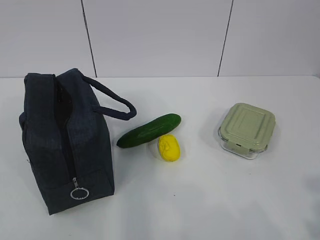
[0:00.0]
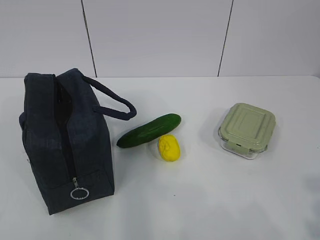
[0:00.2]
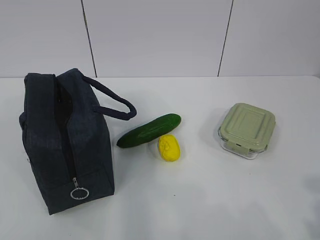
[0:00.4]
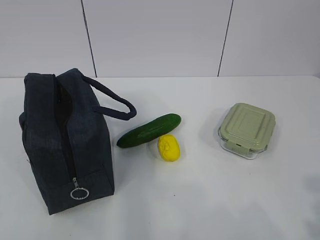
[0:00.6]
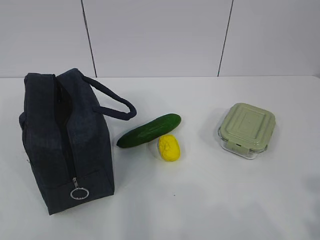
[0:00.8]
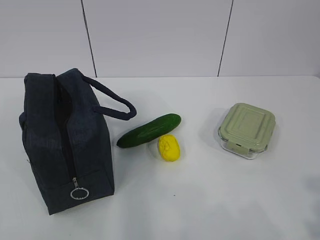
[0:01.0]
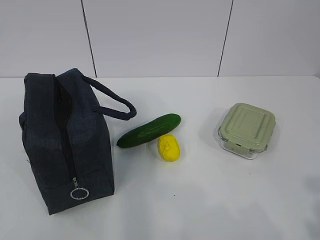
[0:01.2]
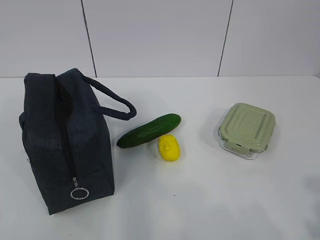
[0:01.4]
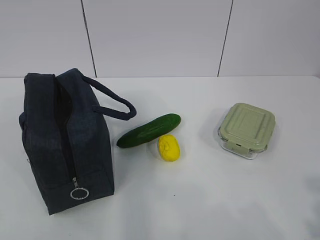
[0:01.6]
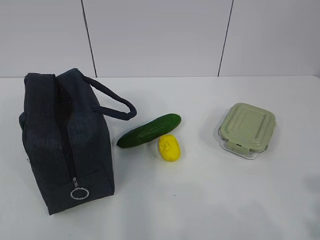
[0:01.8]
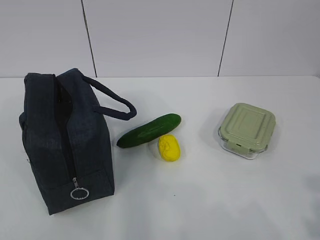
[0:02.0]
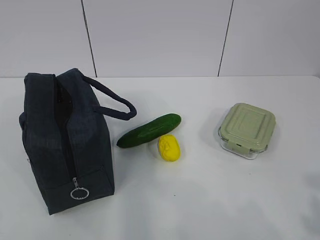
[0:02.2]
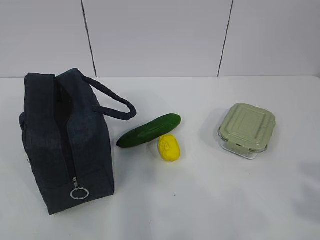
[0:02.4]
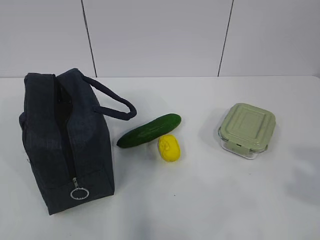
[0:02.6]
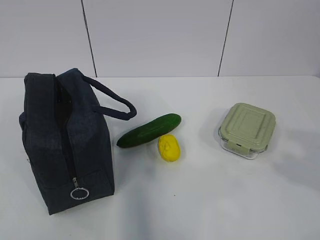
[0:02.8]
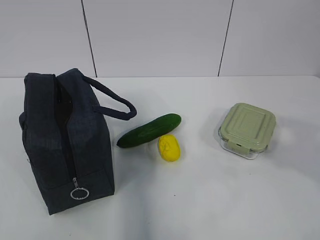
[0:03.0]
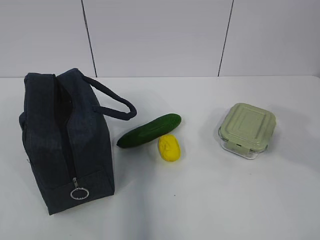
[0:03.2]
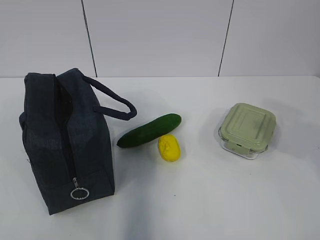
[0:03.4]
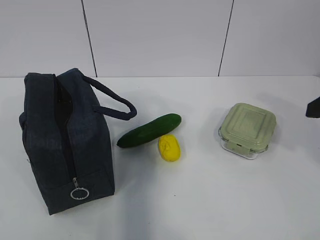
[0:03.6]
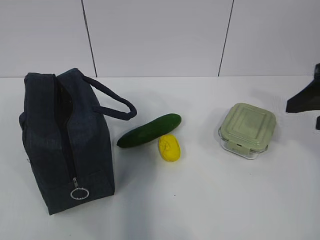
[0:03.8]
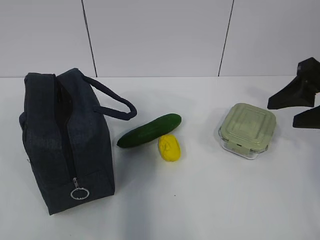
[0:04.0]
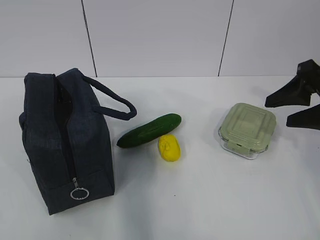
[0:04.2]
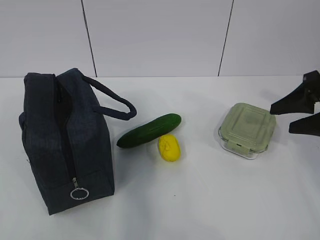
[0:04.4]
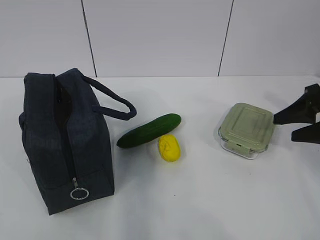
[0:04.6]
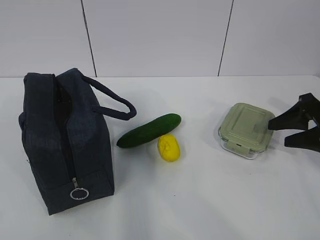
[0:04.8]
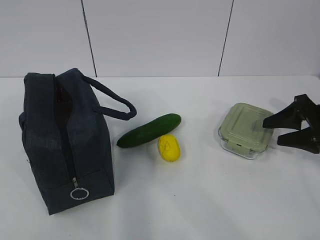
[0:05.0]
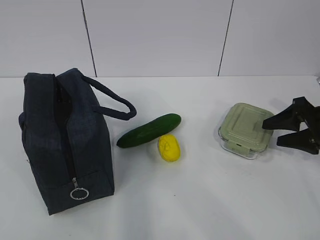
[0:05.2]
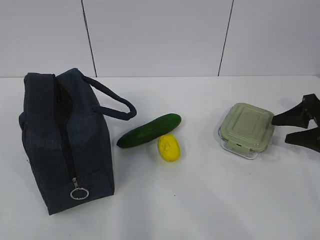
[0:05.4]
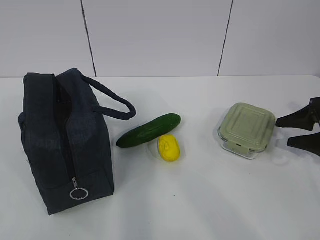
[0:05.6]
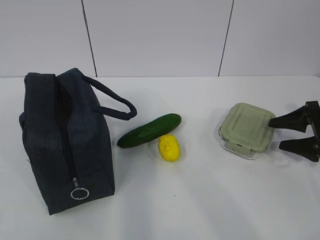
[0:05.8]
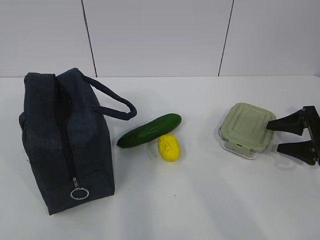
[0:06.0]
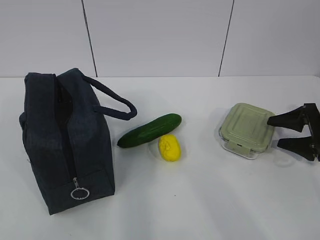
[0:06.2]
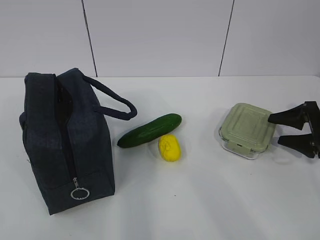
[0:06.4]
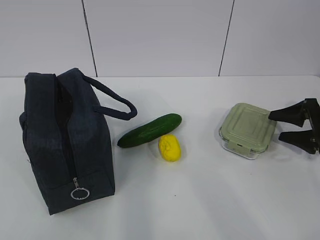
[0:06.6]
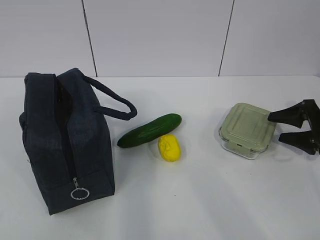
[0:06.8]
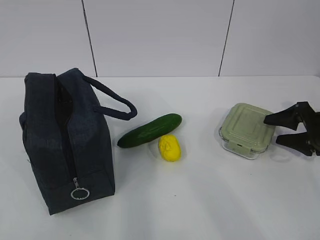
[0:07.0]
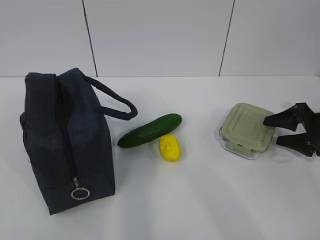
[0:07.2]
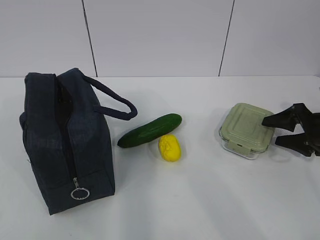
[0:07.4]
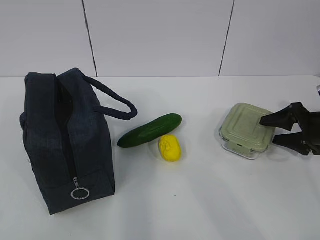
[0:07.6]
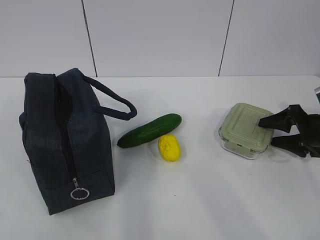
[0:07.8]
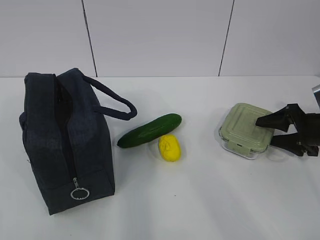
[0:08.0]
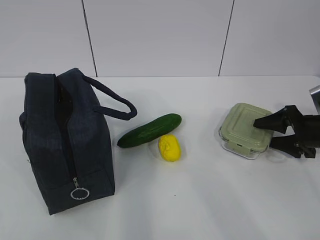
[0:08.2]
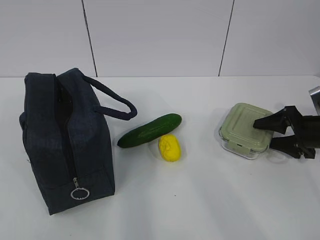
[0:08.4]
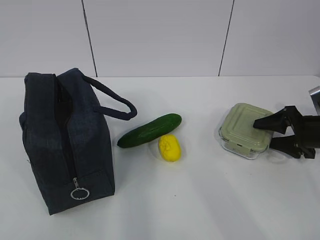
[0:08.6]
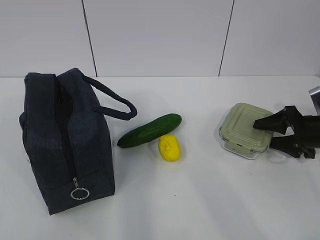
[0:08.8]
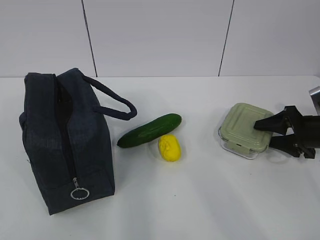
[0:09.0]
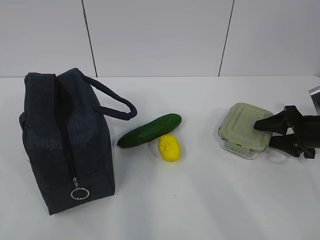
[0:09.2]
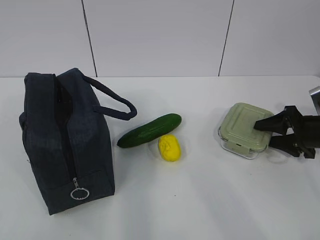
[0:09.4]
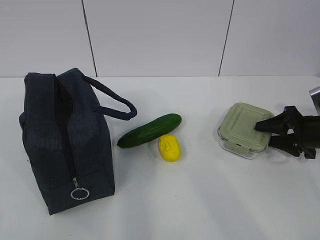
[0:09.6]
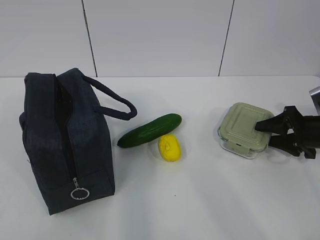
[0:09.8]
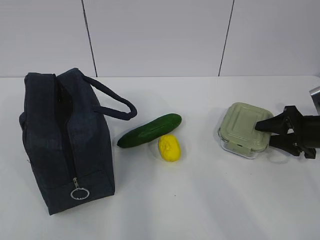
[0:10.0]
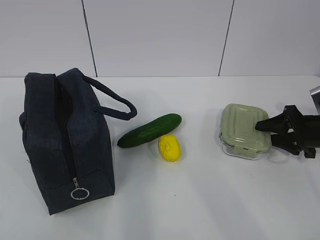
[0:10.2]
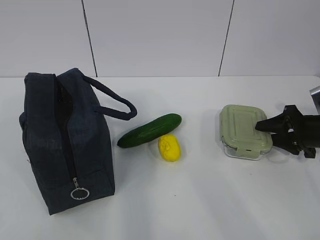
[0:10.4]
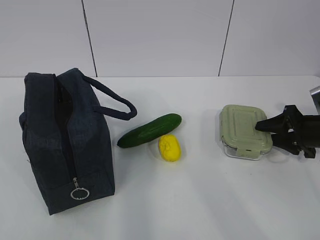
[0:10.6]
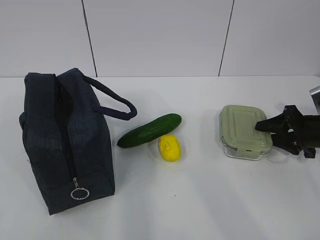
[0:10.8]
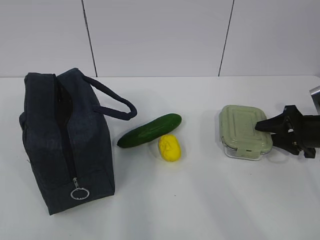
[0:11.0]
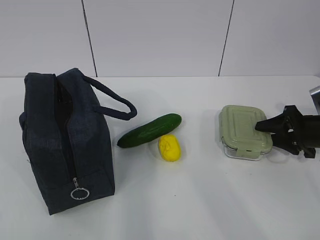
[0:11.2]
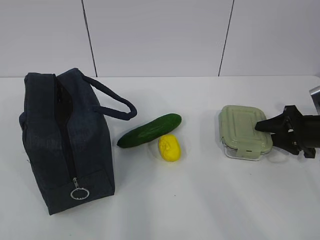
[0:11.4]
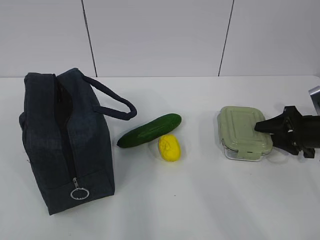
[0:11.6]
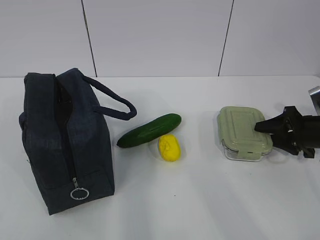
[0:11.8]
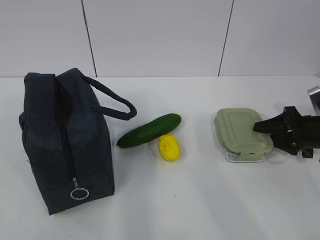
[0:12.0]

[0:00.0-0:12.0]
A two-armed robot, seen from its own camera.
Step, 0:00.0 to 0:11.2: Grab the lunch box with your right hand.
0:01.6 to 0:03.0: The right gripper moves forward, about 10 cm.
0:03.0 to 0:04.4: The right gripper heads forward and downward, covering approximately 20 cm.
0:04.4 to 0:06.0: The right gripper moves downward and to the right, about 15 cm.
0:06.0 to 0:07.6: The grippers stay close to where they were, moving slightly.
0:07.6 to 0:10.4: Both grippers stay about where they are.
0:10.4 to 0:12.0: Both grippers stay put.

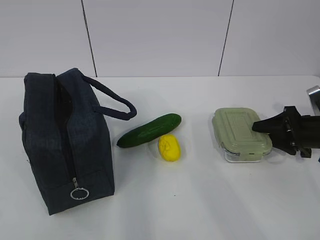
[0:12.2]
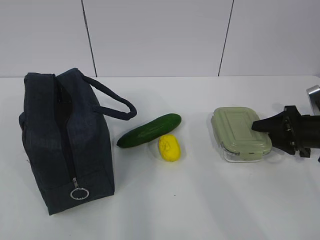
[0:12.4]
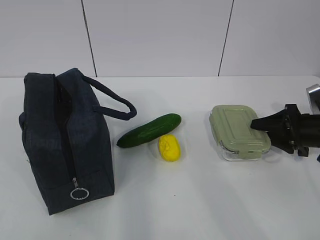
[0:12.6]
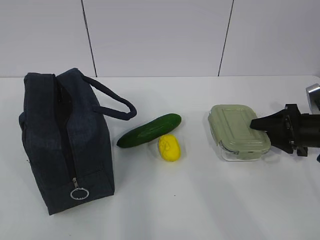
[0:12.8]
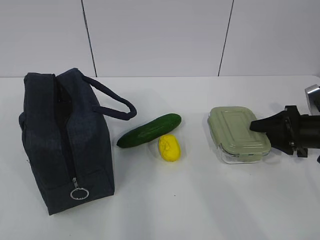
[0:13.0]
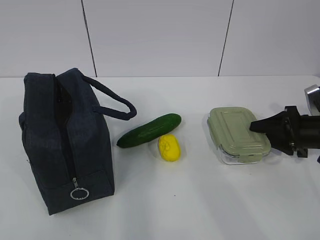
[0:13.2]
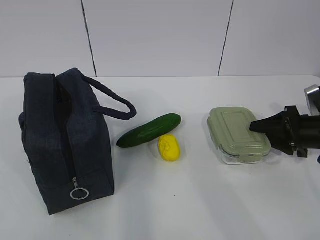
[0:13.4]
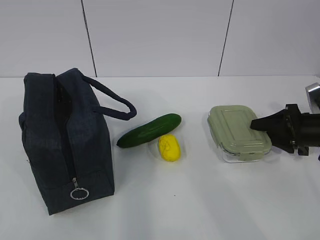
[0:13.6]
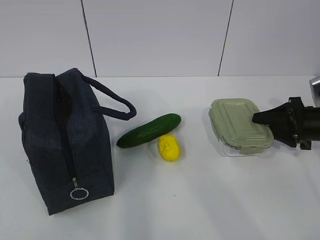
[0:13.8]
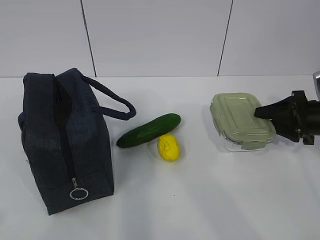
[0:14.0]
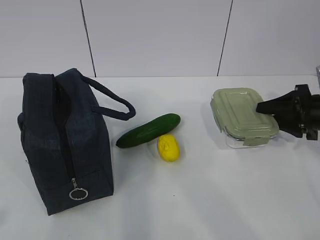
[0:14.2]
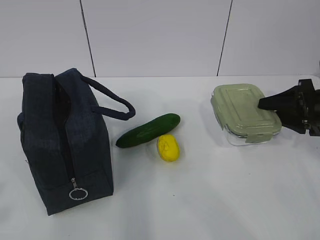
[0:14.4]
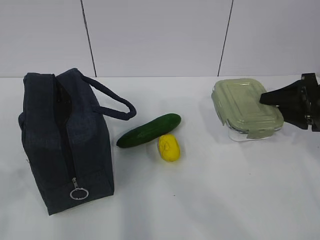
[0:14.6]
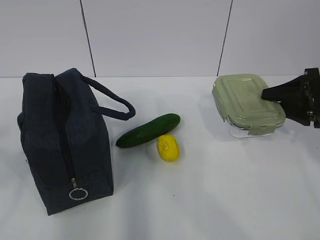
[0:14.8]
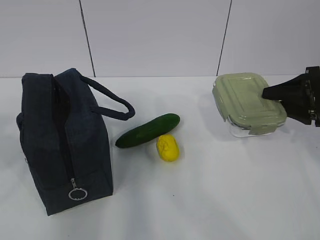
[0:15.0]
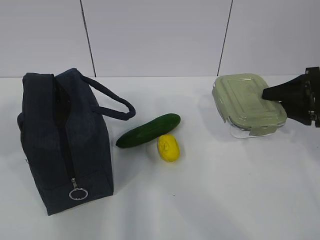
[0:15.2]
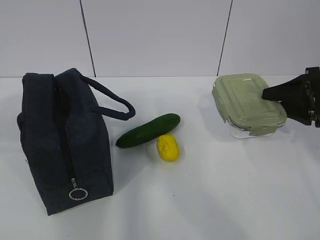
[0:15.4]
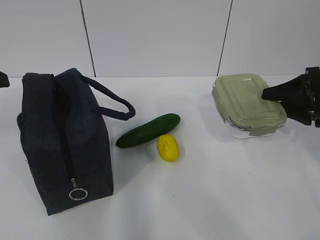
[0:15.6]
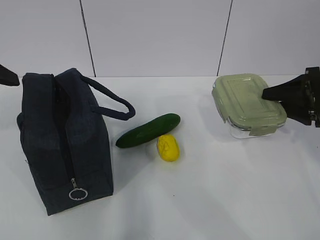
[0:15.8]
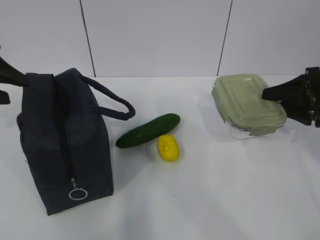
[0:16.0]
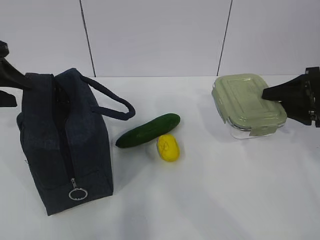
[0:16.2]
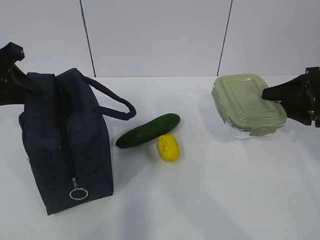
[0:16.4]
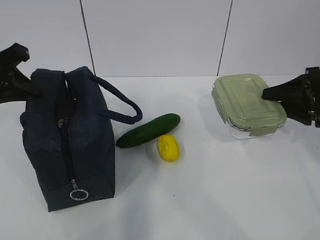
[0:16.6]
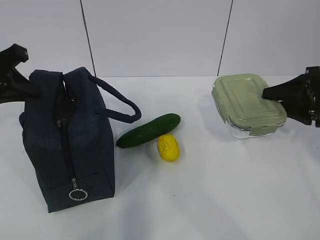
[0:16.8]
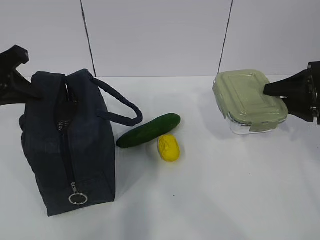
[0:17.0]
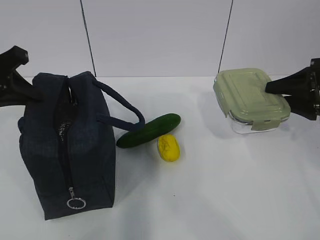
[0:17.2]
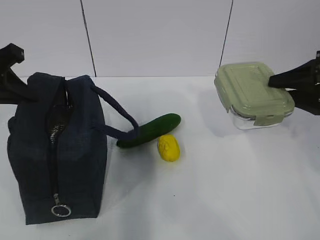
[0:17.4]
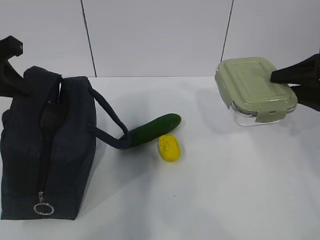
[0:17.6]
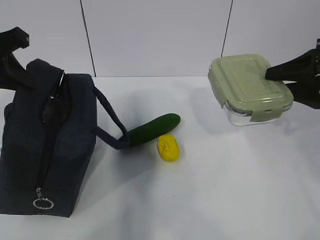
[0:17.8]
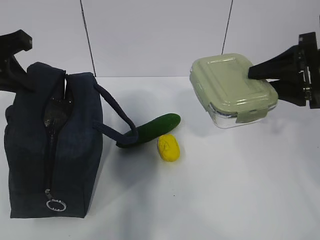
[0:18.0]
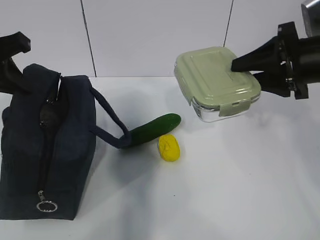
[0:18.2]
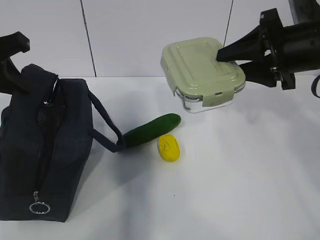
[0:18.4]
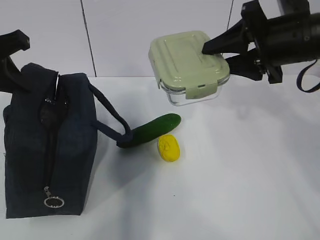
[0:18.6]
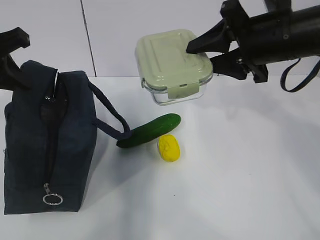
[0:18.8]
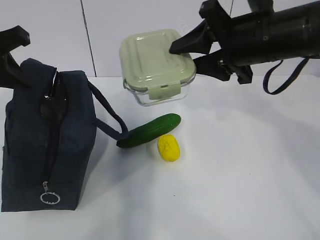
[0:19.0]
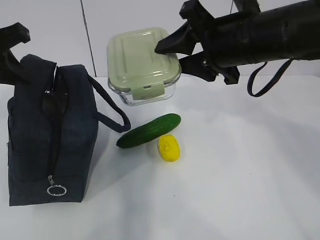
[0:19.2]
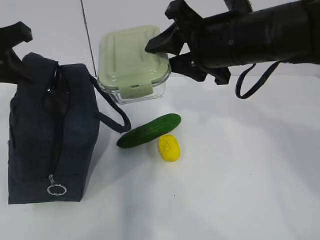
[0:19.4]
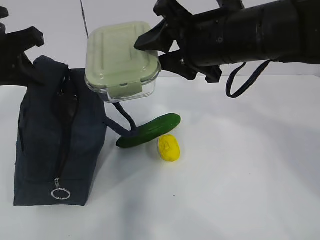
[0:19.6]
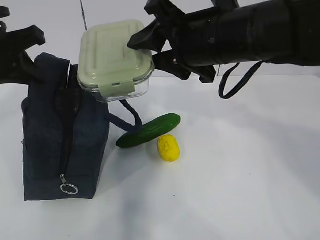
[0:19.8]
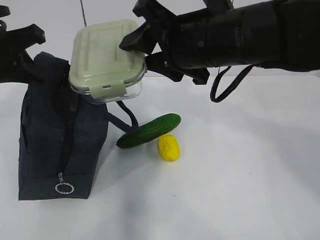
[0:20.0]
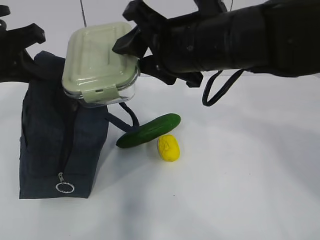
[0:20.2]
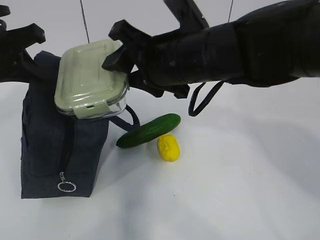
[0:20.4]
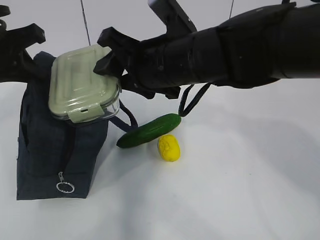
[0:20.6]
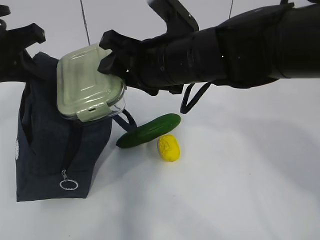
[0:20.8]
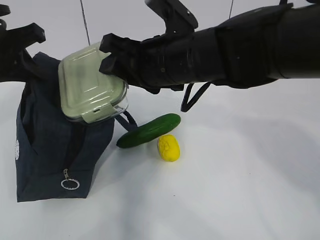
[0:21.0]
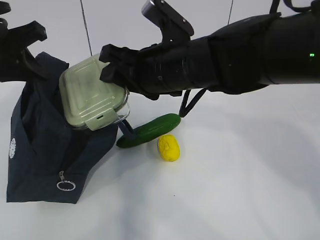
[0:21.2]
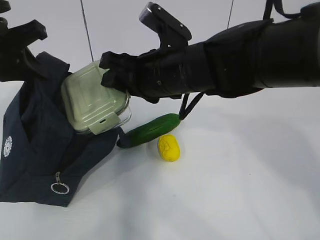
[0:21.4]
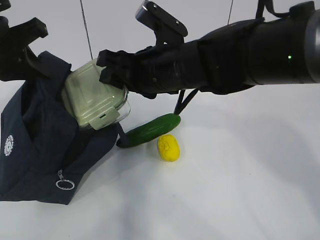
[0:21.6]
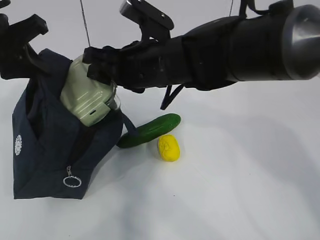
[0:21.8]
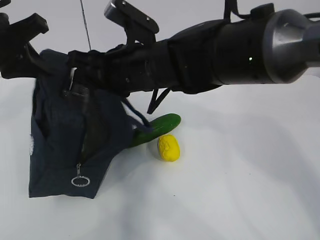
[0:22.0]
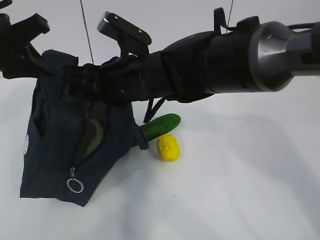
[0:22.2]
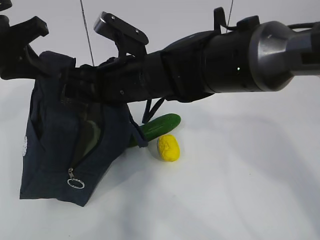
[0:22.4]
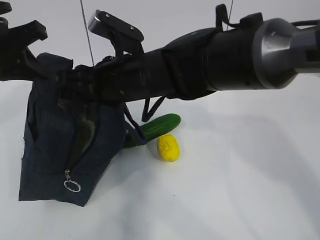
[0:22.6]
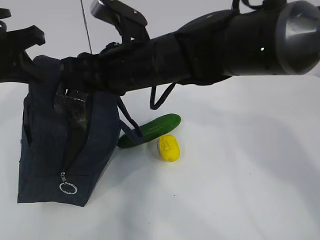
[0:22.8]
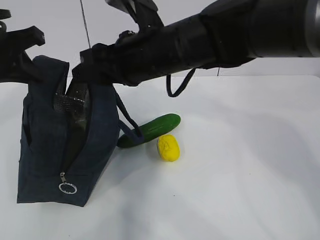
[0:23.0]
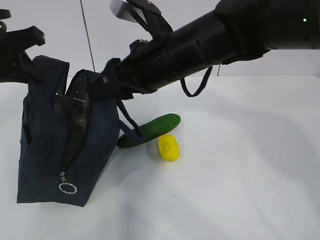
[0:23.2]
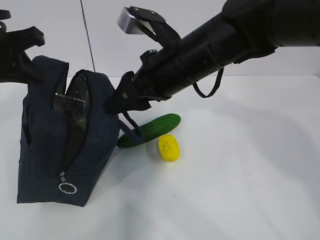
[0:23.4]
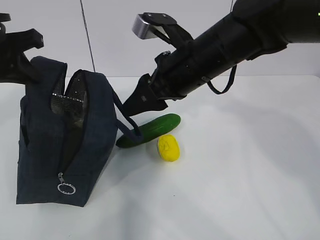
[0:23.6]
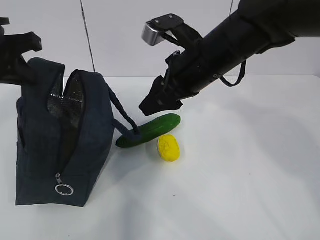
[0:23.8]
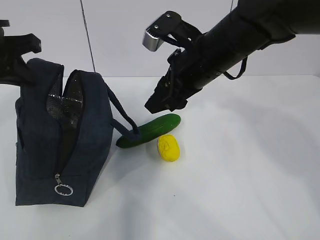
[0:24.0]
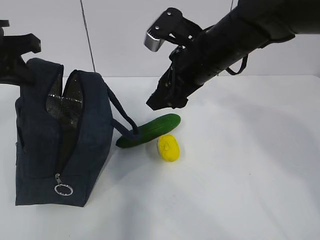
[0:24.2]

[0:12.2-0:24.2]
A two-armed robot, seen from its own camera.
Step, 0:12.2 to 0:16.8: Grab the lunch bag with your left hand.
Step, 0:17.2 to 0:18.6: Place it into the bag with your right hand.
Step, 0:18.8 to 0:23.4: Grab the cucumber with your right hand.
0:12.2 to 0:13.8: The grippers stay close to where they were, moving slightly.
0:13.8 to 0:15.2: The left gripper is displaced forward by approximately 15 cm, and opens. Meanwhile the right gripper shifts roughly 5 cm upward.
0:15.2 to 0:16.6: The left gripper moves forward, approximately 15 cm, and closes its fingers.
0:16.6 to 0:18.2: The right gripper goes some 10 cm upward and to the left.
0:18.2 to 0:19.8: The right gripper travels to the left by approximately 15 cm.
0:19.8 to 0:21.2: The right gripper travels to the left by some 5 cm.
0:21.2 to 0:22.6: The right gripper travels to the left by about 5 cm.
0:22.6 to 0:24.2: The right gripper moves to the right, roughly 10 cm.
